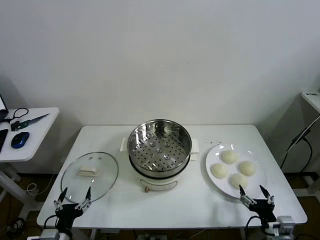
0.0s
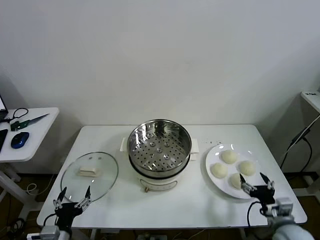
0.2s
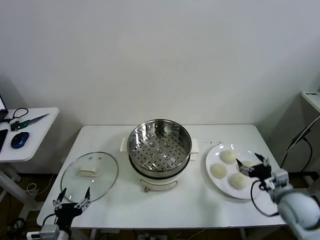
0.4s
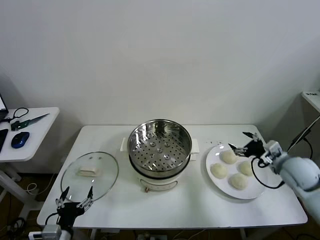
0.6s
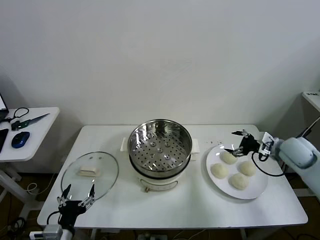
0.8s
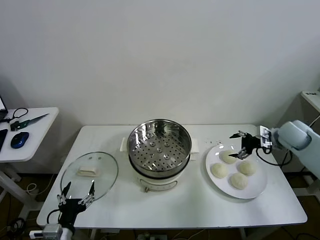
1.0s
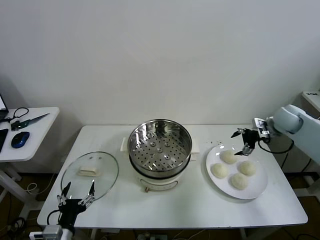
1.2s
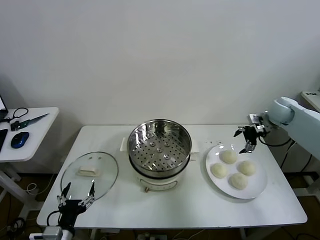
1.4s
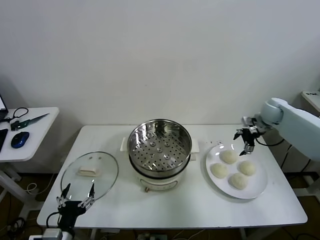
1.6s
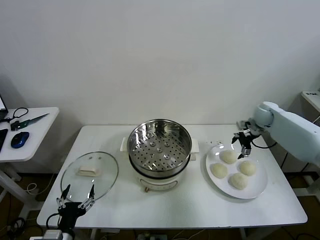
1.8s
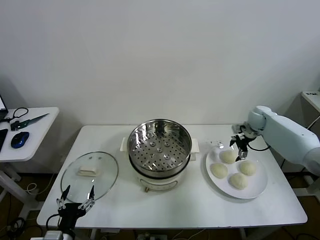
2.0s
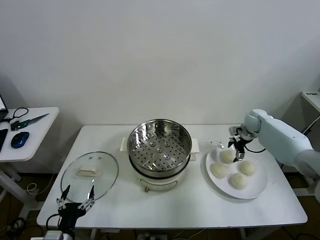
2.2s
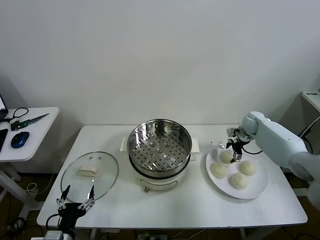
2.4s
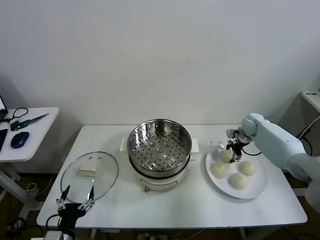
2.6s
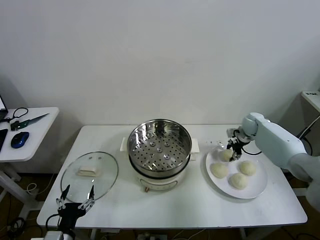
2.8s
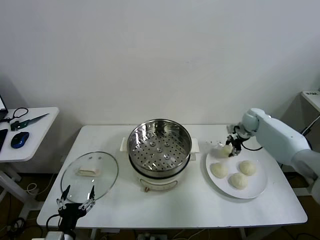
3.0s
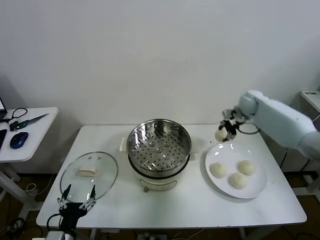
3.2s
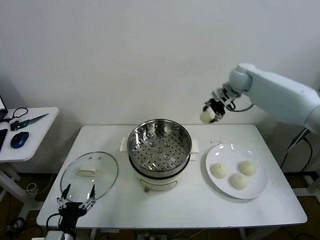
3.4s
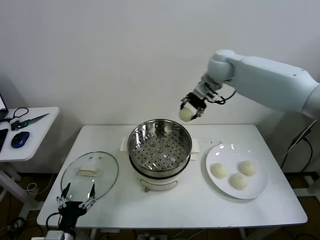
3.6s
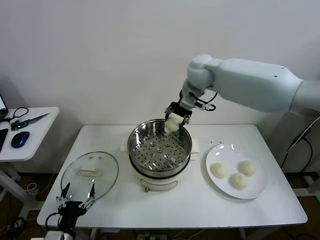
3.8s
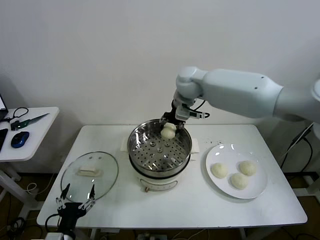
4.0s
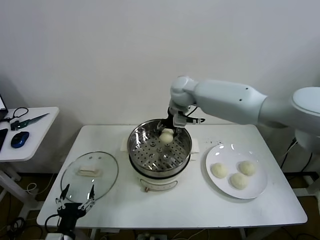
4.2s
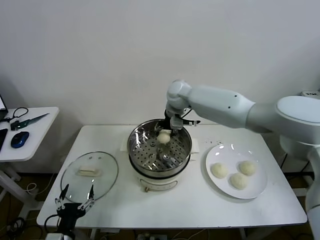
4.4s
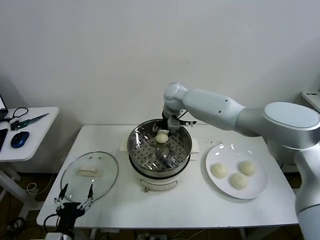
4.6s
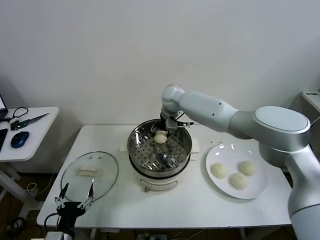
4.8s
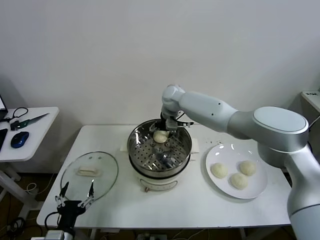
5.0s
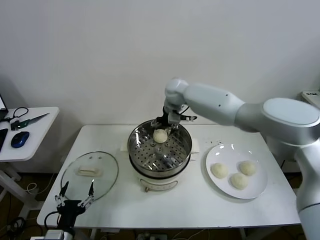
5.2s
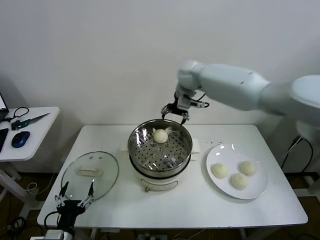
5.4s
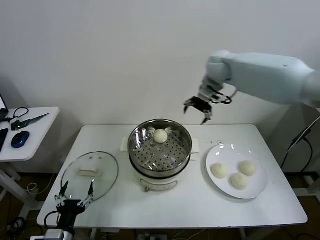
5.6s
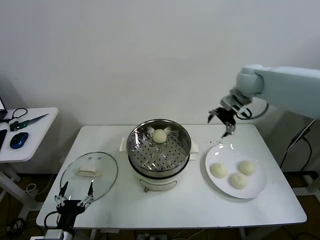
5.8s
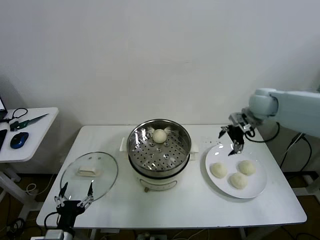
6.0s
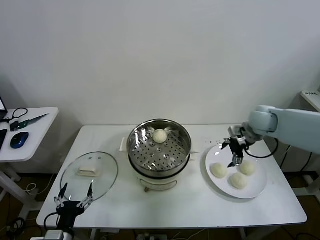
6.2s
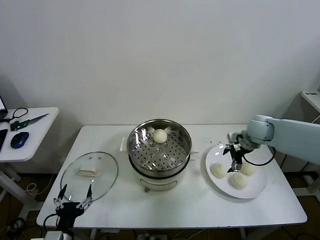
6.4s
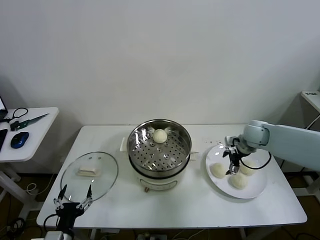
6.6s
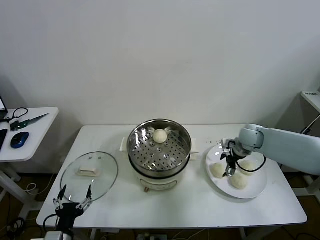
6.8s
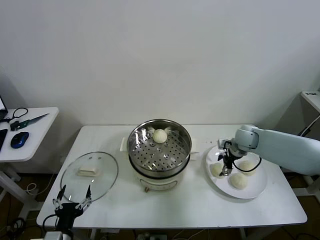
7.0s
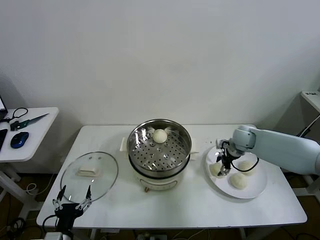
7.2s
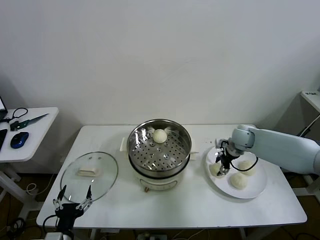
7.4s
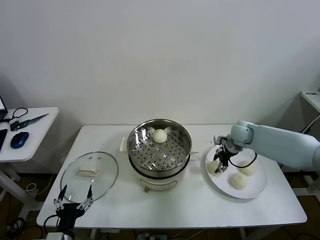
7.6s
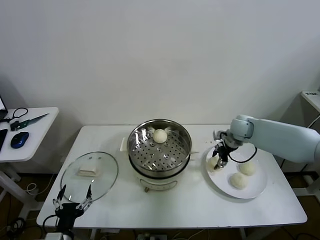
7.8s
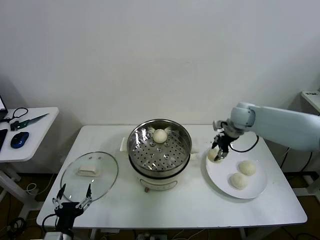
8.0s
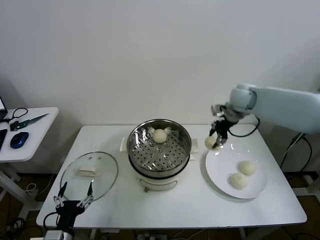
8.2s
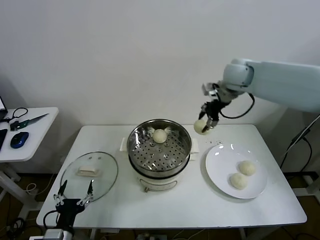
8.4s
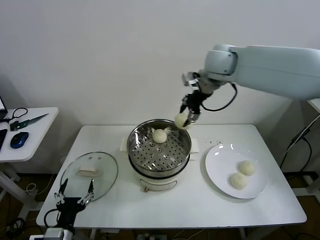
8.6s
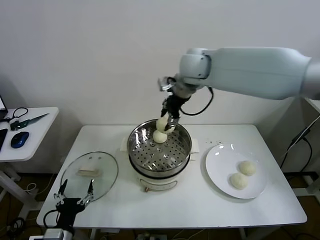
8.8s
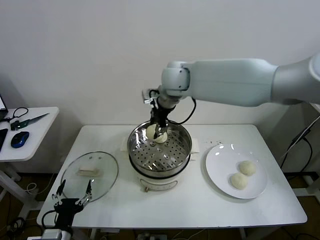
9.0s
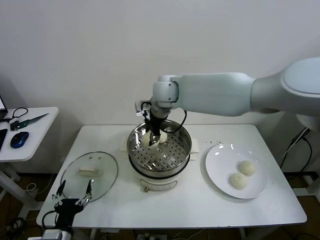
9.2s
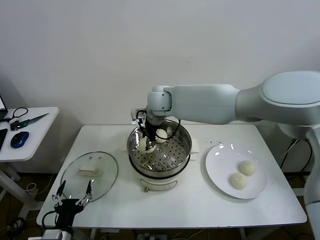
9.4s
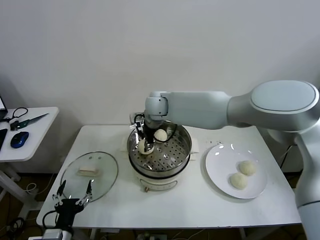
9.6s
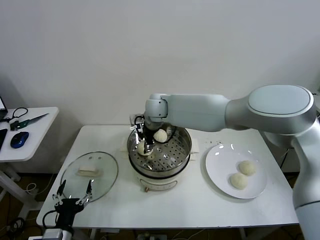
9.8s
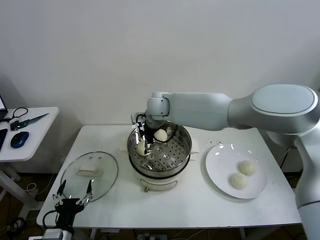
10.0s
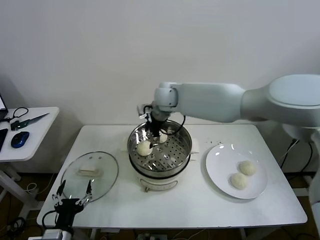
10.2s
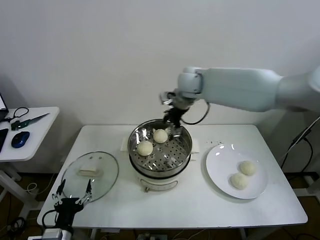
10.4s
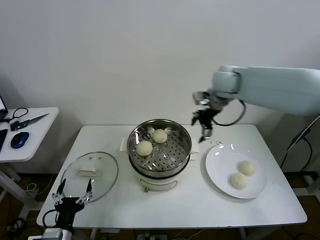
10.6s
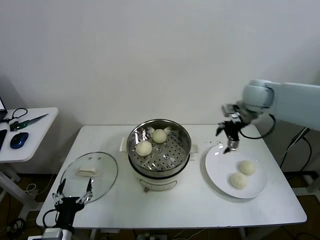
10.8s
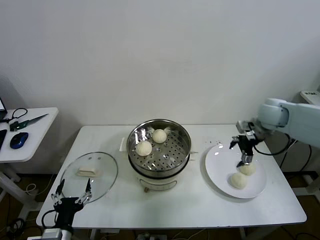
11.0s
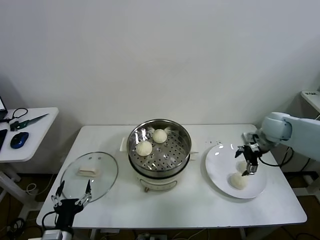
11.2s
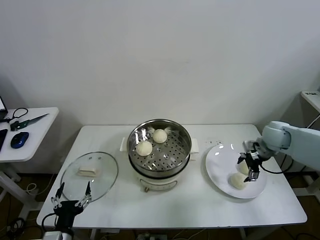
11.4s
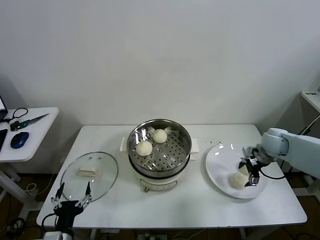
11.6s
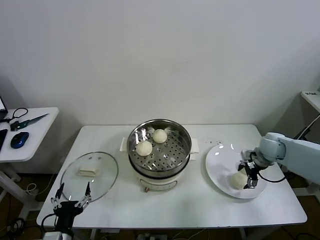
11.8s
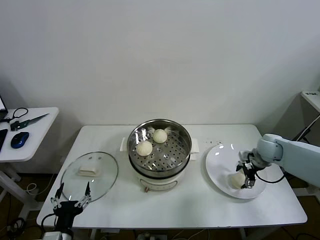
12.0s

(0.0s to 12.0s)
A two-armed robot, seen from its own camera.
Task of the whole recording: take steamed baozi put them in steamer then cover it.
Step, 0.0s - 2.6s: Grasp the baozi in the plate with right gripper.
Step, 2.8s - 5.0s: Place the baozi on the steamer with right gripper.
Step, 5.4s - 7.2s: Grasp the baozi in the plate with right gripper.
Step, 7.6s - 9.8s: Place the baozi on the steamer with right gripper.
1.6s - 3.0s: The right gripper travels downward and back again, approximately 10 cm each way, and closes up.
3.0s - 4.4s: The right gripper heads to the left, covering about 30 cm.
4.4s - 6.0s: The right gripper goes about 30 cm to the right, and opens up.
6.0s - 7.6s: The right gripper is displaced downward by approximately 10 cm, and closes up.
7.6s - 9.0s: The right gripper shifts roughly 35 cm to the left and upward.
9.0s - 10.4s: The right gripper heads to the right, covering about 10 cm, and opens.
10.4s - 12.0s: The right gripper shifts roughly 35 cm to the right and downward.

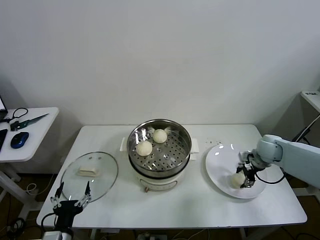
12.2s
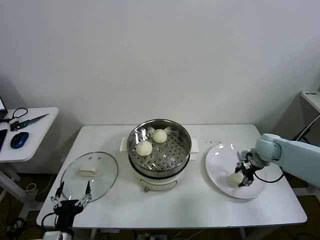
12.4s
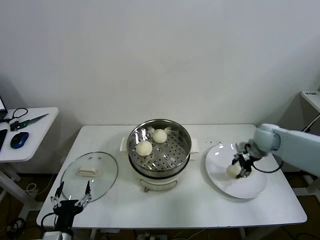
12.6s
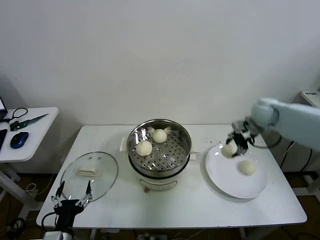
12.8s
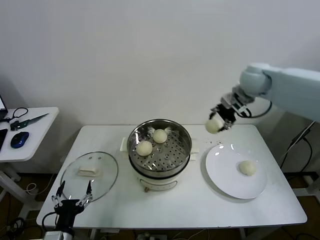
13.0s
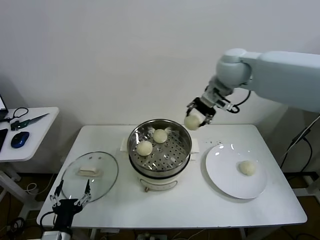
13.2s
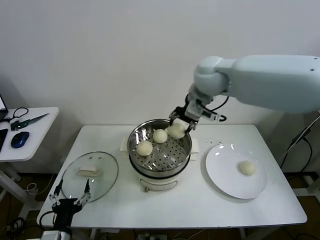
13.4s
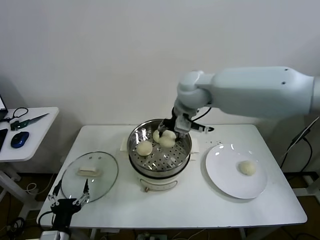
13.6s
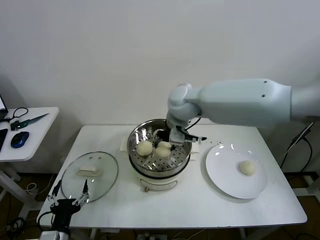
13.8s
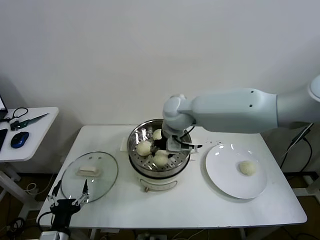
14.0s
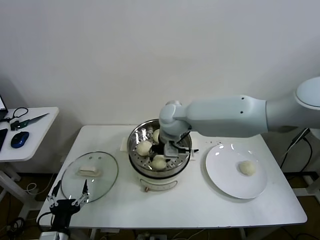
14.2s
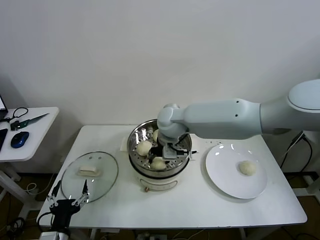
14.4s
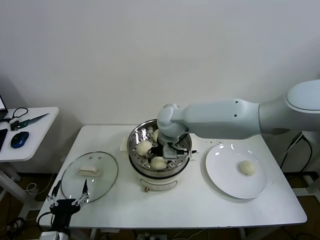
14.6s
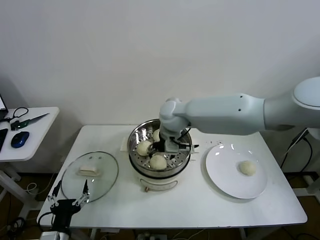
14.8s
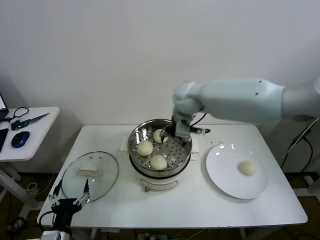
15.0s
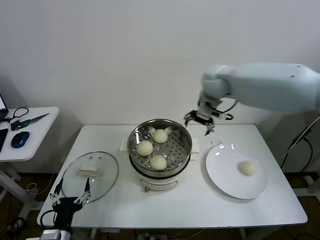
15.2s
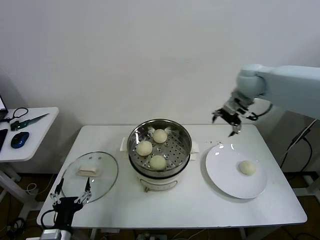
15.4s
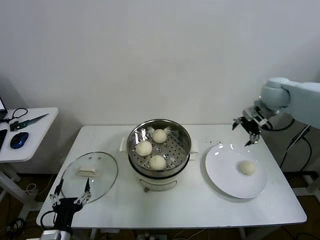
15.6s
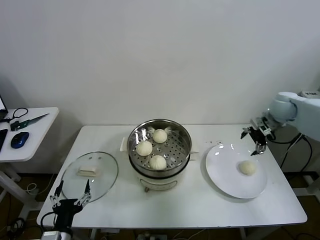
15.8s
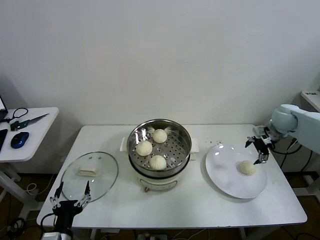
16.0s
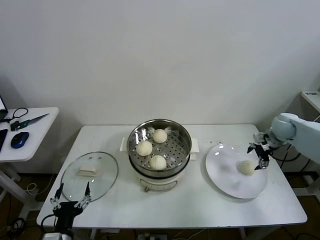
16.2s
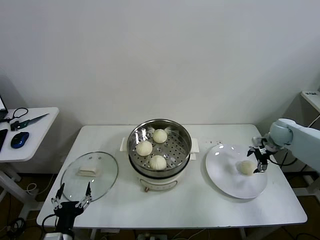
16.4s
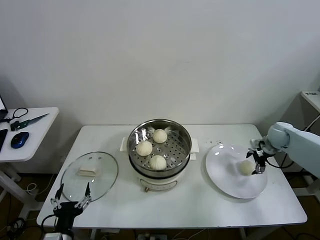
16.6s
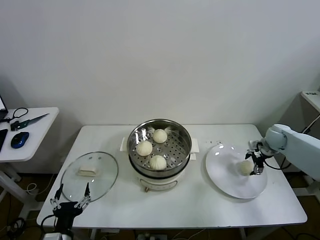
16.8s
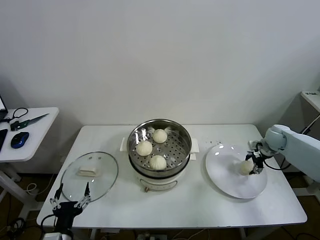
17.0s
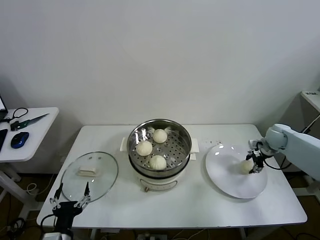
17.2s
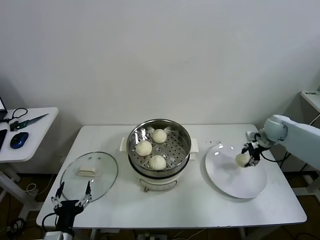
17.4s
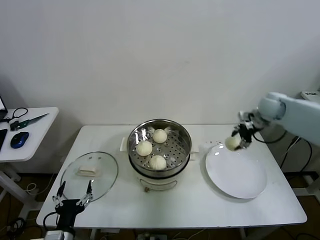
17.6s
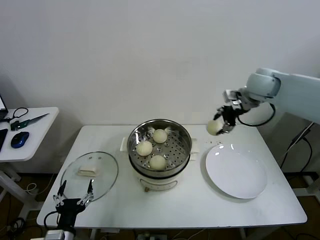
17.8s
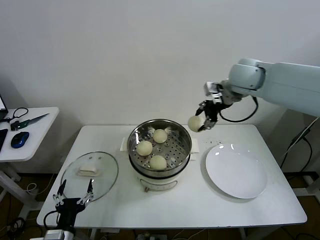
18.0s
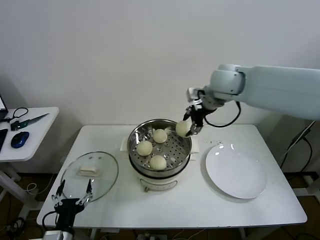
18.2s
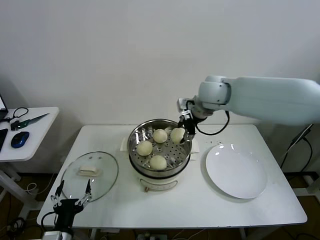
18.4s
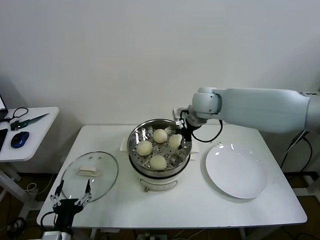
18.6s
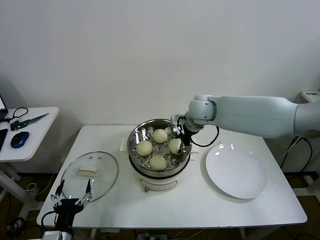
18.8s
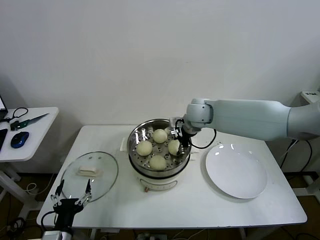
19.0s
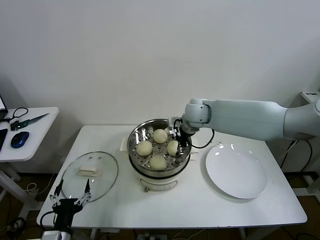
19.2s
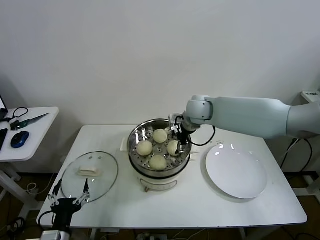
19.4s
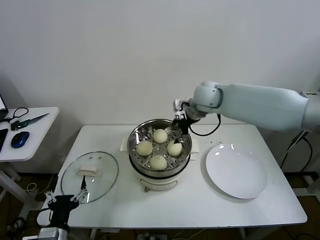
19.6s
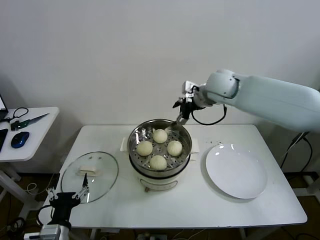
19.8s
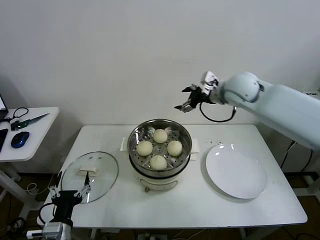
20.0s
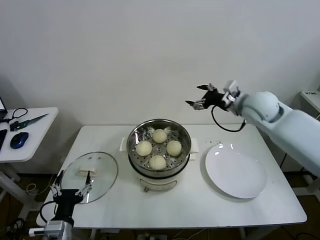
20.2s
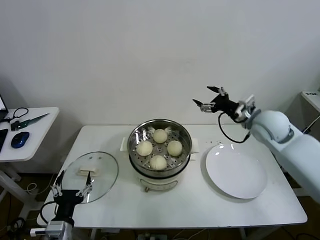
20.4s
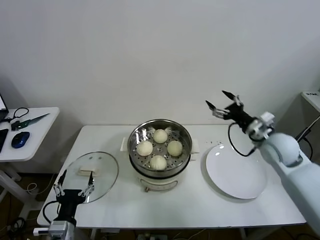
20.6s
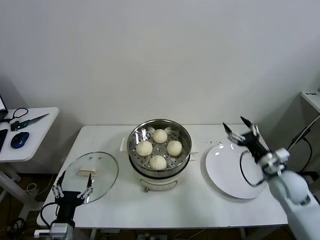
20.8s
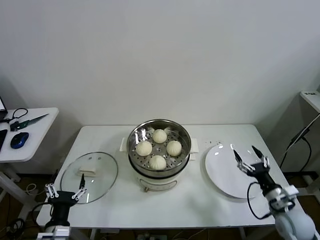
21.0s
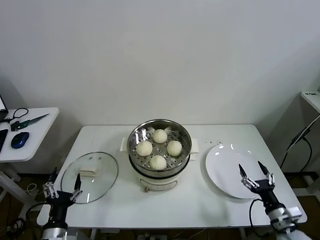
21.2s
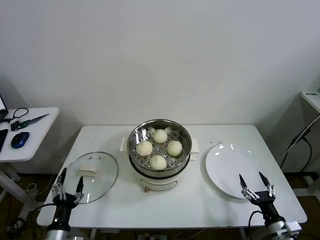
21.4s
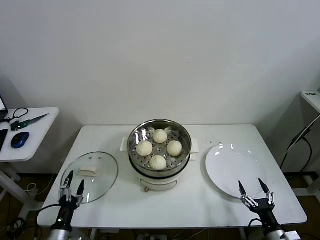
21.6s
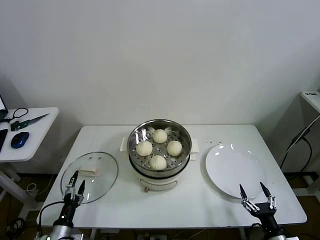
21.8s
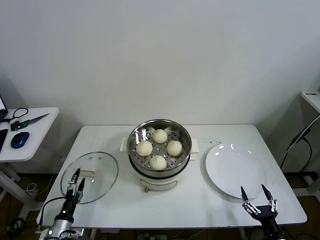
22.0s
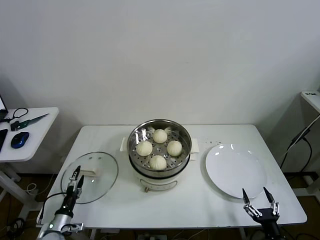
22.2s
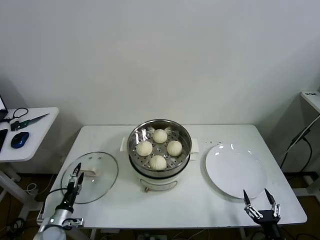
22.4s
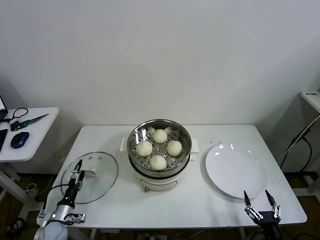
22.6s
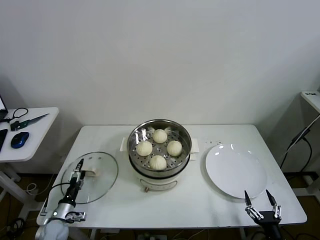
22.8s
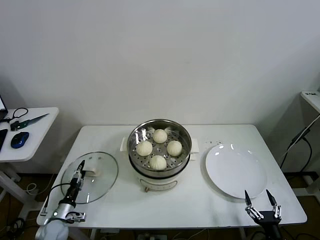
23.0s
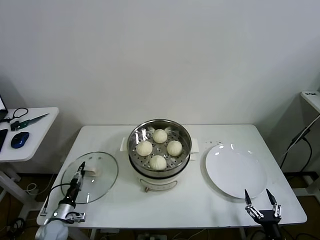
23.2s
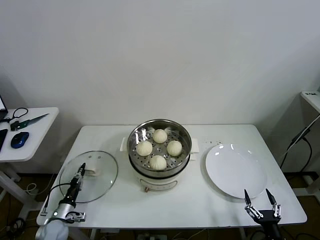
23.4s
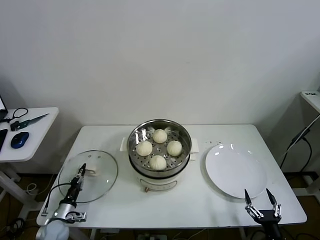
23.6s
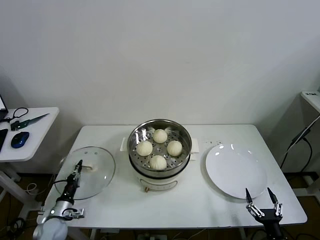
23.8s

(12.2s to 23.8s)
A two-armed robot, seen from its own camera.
Task of the whole recording: take steamed baozi put them in steamer then cover it.
Step, 12.4s - 14.6s: Place the baozi on the steamer with right gripper.
Step, 15.0s - 16.8s: Grasp the baozi in the plate with right gripper.
Step, 17.2s - 19.2s: Place the baozi on the steamer with right gripper.
Step, 19.6s - 23.6s: Grasp the pot lid with left gripper.
12.2s - 13.6s: The right gripper goes about 40 cm to the left and upward.
13.6s - 15.0s: The right gripper travels downward and back again, about 10 cm each way, and opens its fingers.
15.0s - 16.6s: The right gripper shifts approximately 40 cm to the right and downward.
16.6s - 18.0s: The right gripper travels upward and to the left by some 35 cm, and closes up.
18.0s - 19.4s: The right gripper shifts roughly 15 cm downward and to the left, and opens.
19.4s - 21.0s: The right gripper is displaced backward, to the right and downward by some 50 cm.
21.0s - 22.4s: The left gripper moves downward, to the left and forward, roughly 20 cm, while the right gripper is displaced backward and downward by some 15 cm.
22.4s - 23.8s: The left gripper closes up.
